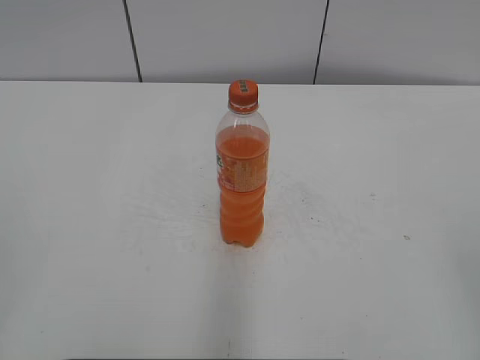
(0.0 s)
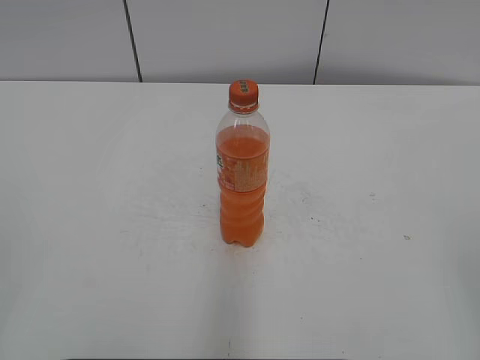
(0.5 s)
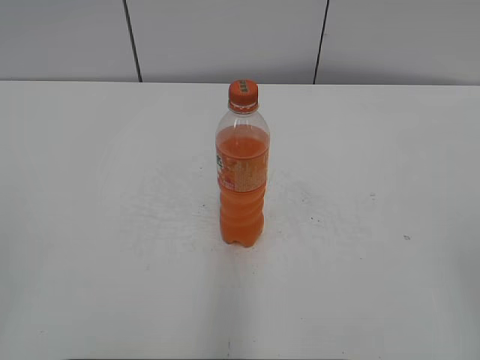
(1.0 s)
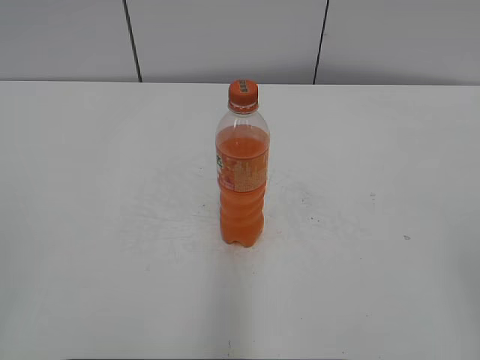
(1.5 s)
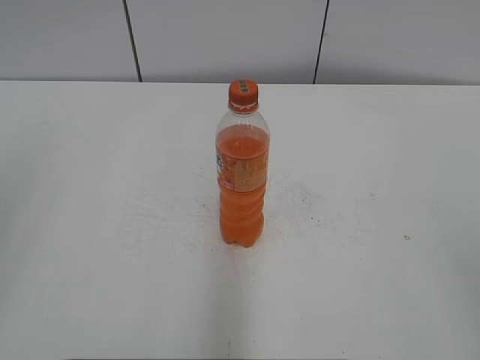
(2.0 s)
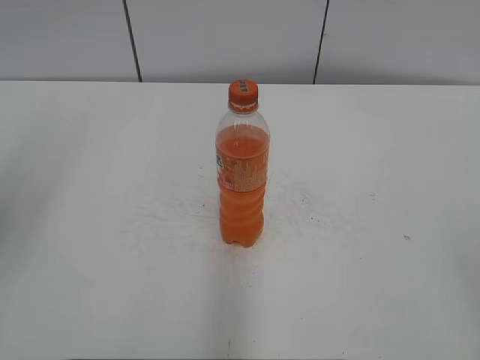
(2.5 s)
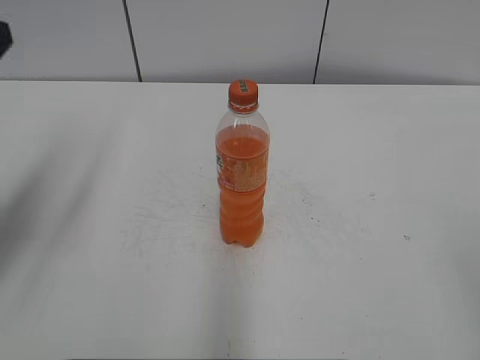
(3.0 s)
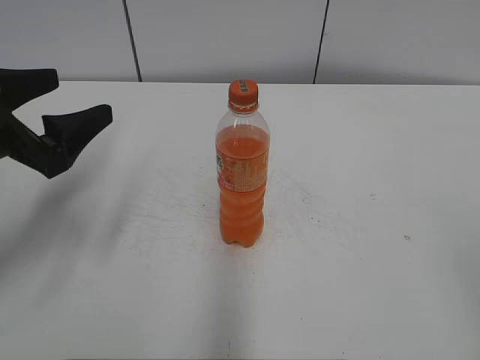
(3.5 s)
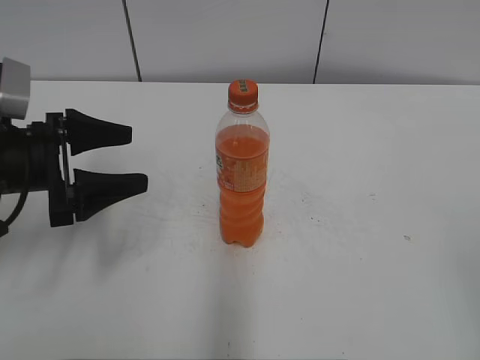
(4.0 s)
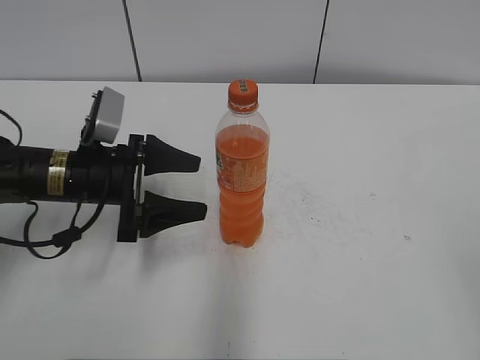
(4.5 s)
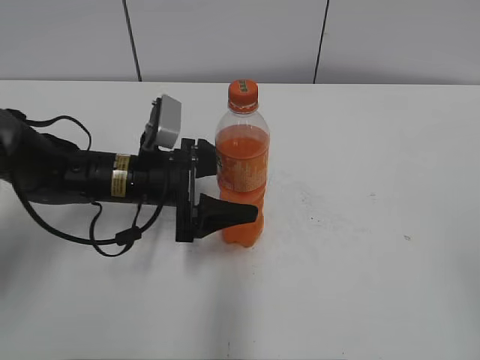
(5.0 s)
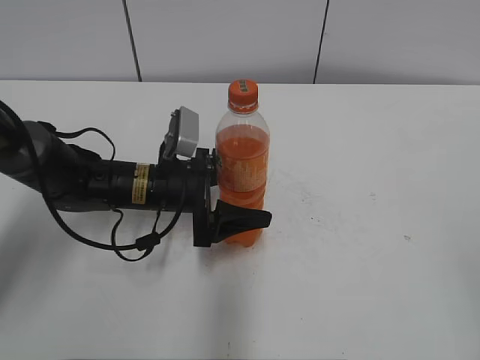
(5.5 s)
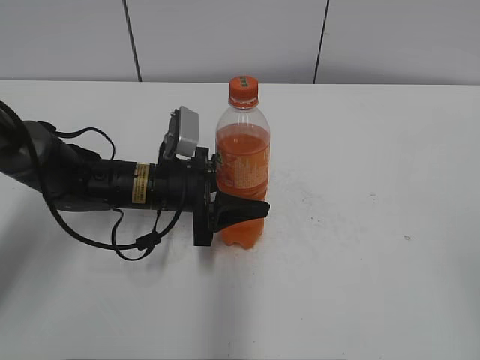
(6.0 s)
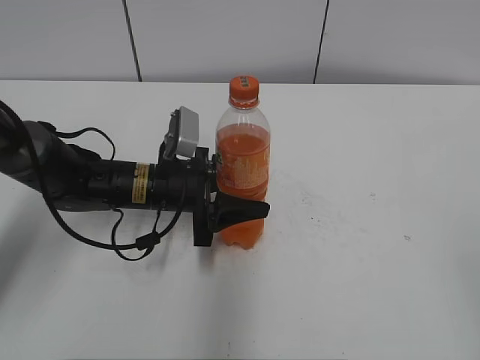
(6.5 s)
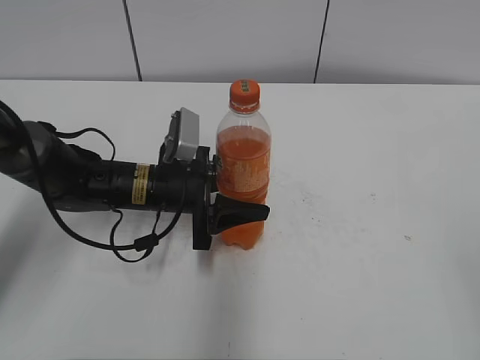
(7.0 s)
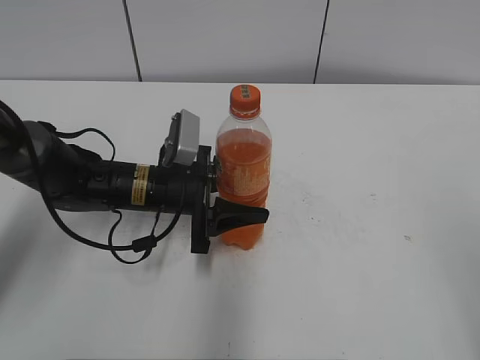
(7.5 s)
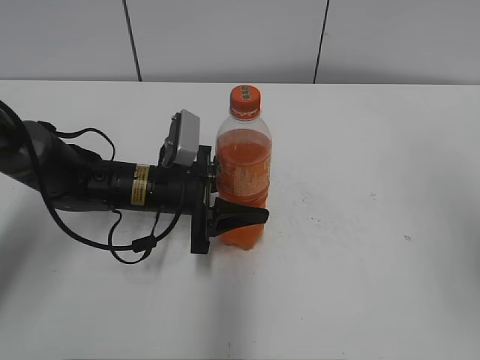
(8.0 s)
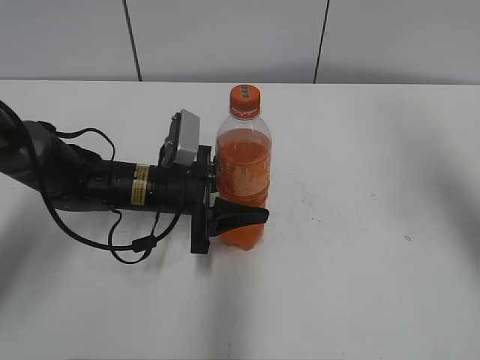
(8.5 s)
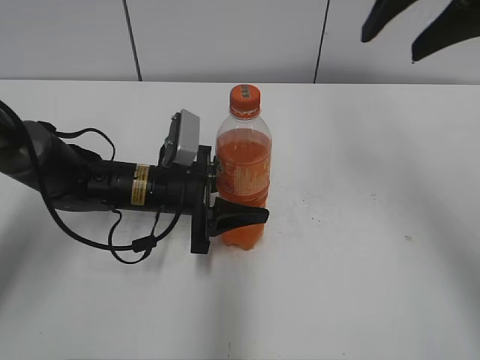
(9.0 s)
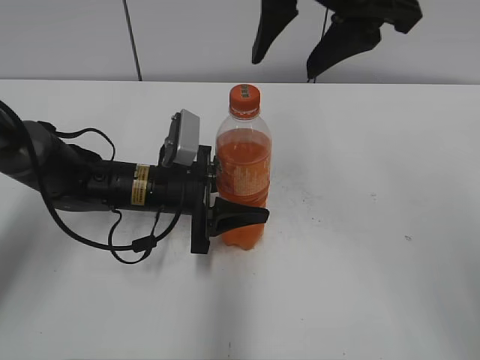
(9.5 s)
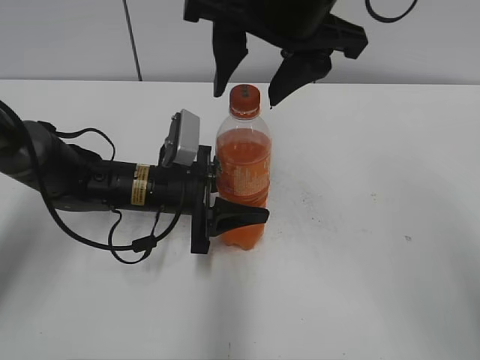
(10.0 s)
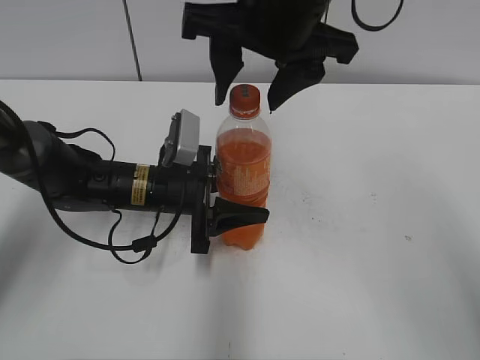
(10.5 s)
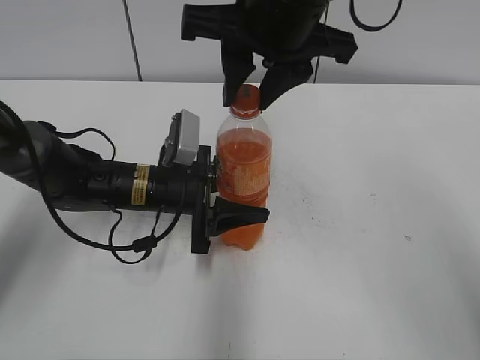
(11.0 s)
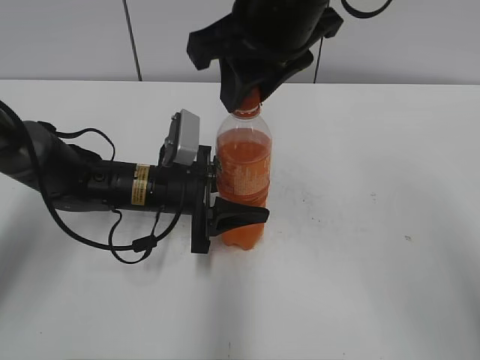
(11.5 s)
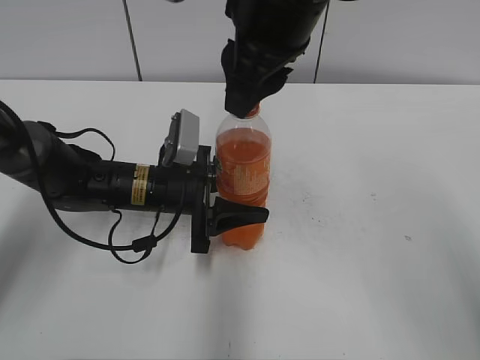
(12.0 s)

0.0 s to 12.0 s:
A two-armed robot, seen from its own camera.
Step, 0.0 to 6.0 s: Grab the Mirinda with the left hand.
2.0 to 4.0 s: The left gripper moves forward and downward, approximately 30 cm, and opens.
4.0 to 6.0 s: The left gripper is displaced to the right, downward and forward by about 20 cm, and closes up.
6.0 to 8.0 s: The right gripper moves forward and upward, approximately 10 cm.
8.0 to 10.0 s: The right gripper shifts approximately 30 cm to the left and forward.
10.0 to 12.0 s: The right gripper closes.

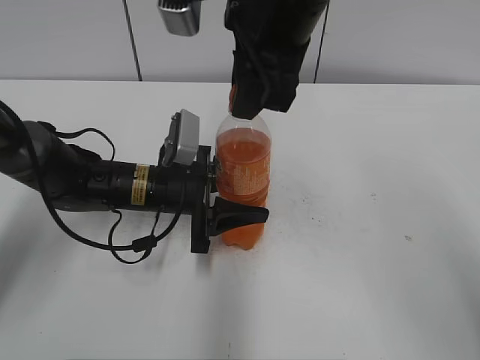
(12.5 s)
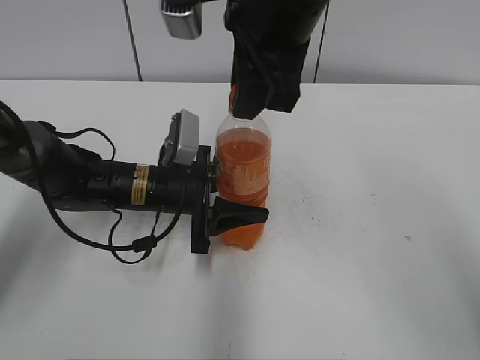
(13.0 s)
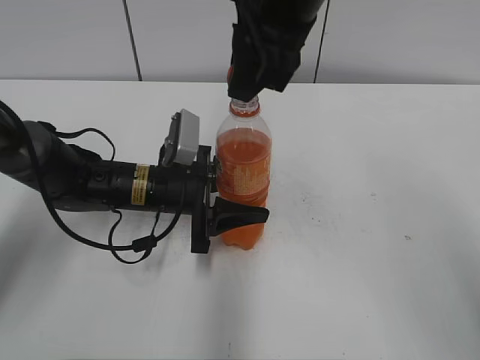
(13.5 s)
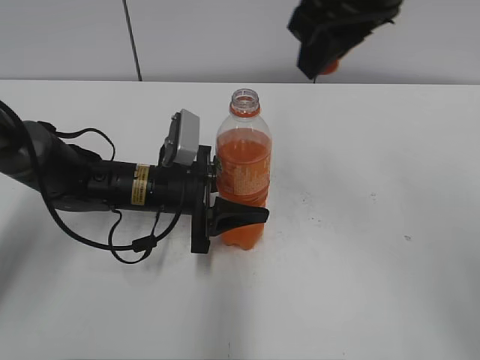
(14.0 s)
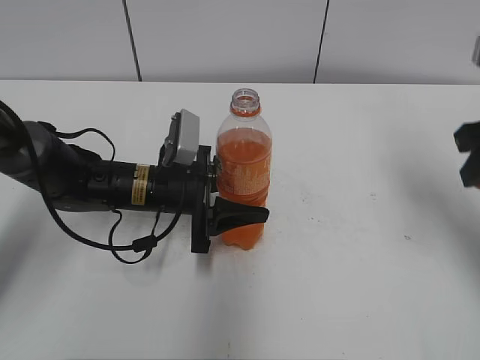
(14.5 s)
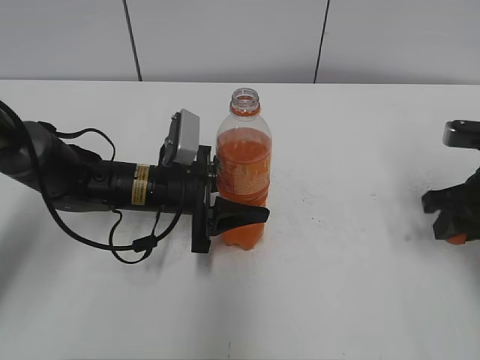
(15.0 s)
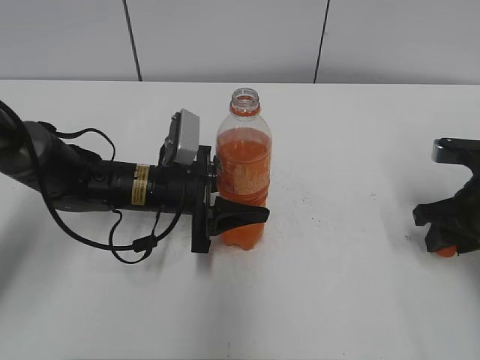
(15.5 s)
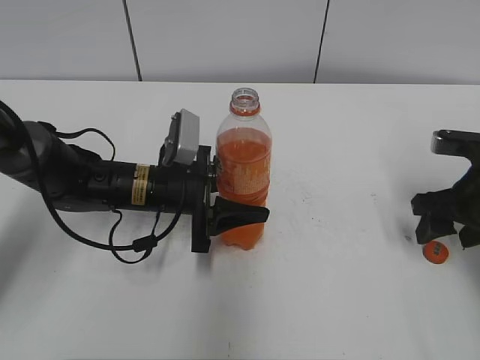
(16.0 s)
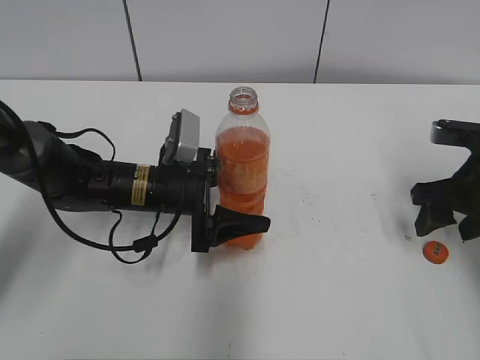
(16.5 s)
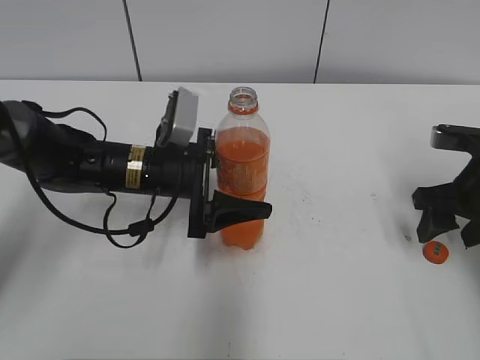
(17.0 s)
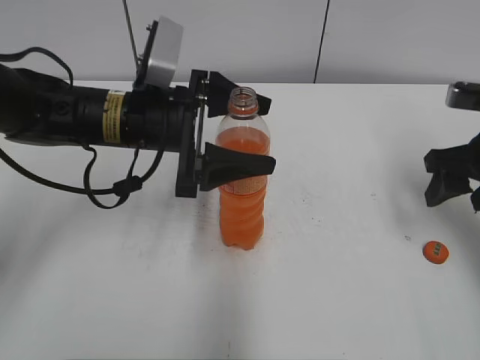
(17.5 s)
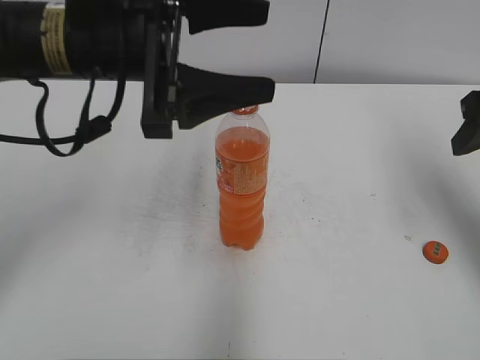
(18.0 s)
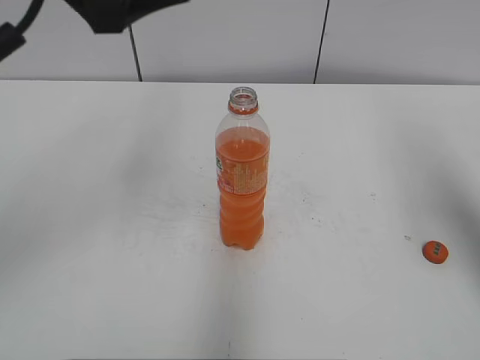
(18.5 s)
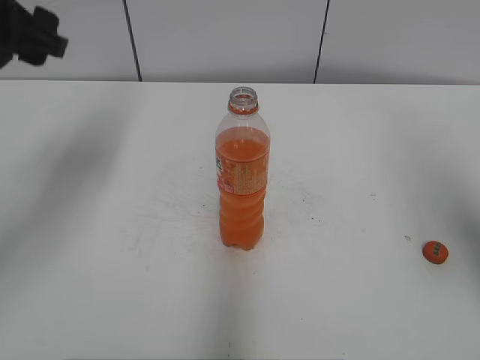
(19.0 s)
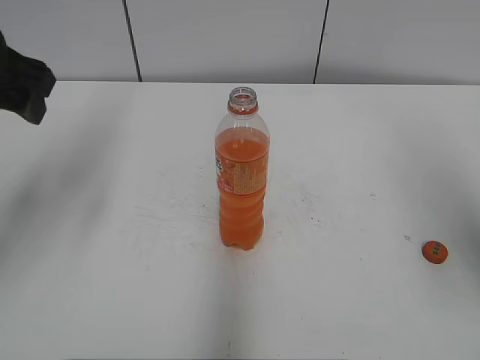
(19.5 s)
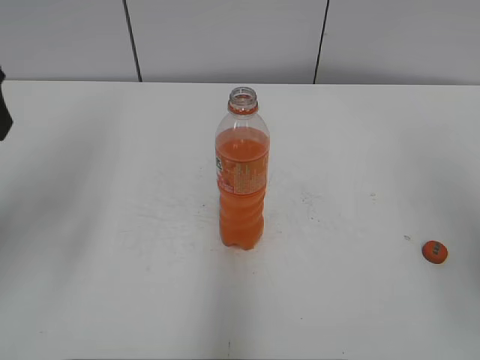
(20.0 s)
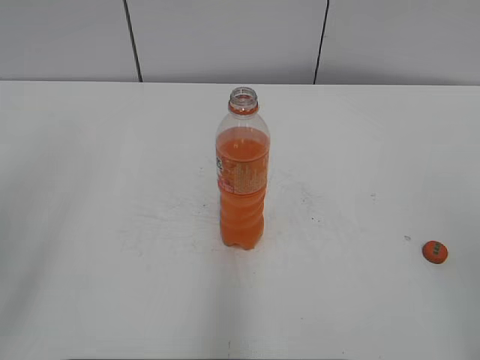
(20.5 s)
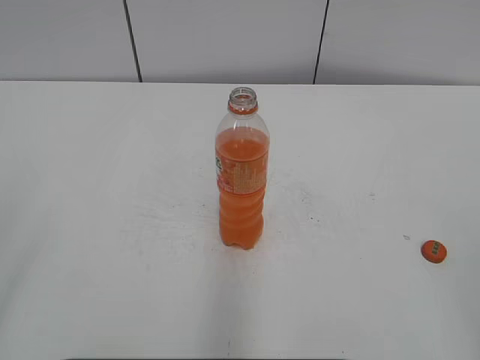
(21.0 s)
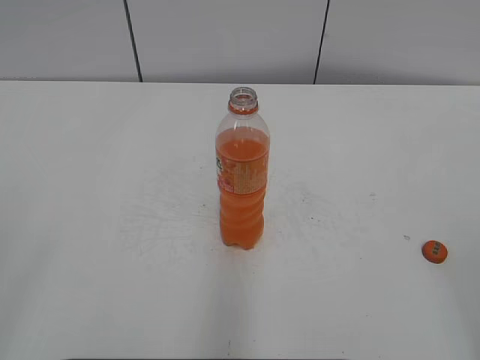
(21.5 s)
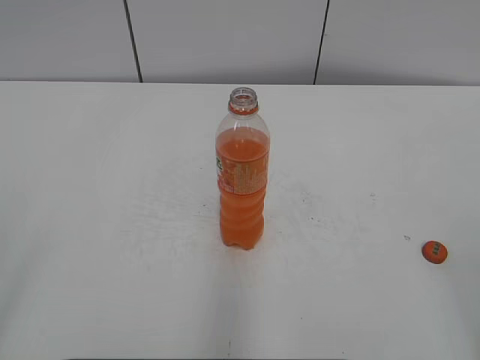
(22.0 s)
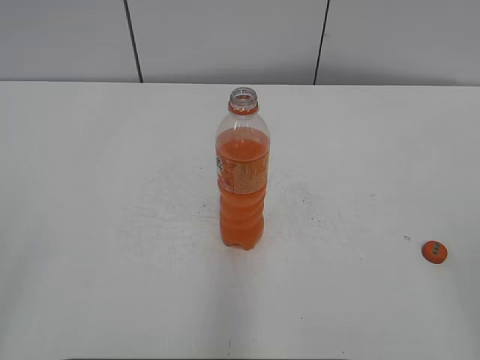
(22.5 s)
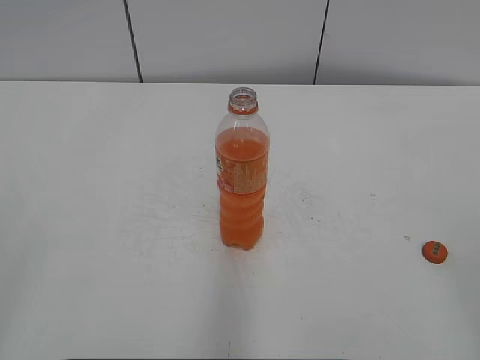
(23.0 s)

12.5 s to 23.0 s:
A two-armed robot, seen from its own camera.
Step, 13.5 to 15.5 s: Place the bottle cap on the right.
12.5 to 14.5 s: The right gripper shifts about 20 cm to the right.
14.5 to 16.5 s: The right gripper goes about 15 cm downward, and opens its fingers, while the left gripper opens.
16.5 to 19.0 s: The right gripper is displaced upward and backward by about 20 cm. Meanwhile the left gripper is displaced upward and to the left by approximately 25 cm.
19.0 to 21.0 s: The two grippers go approximately 25 cm backward.

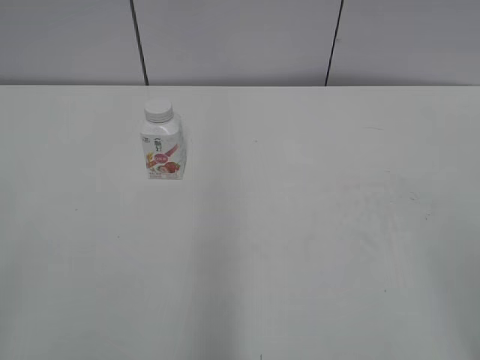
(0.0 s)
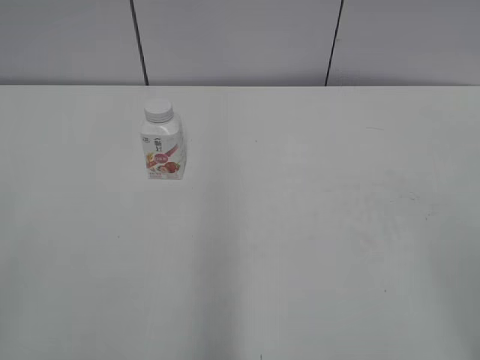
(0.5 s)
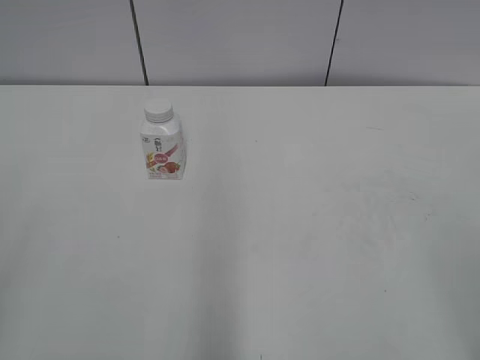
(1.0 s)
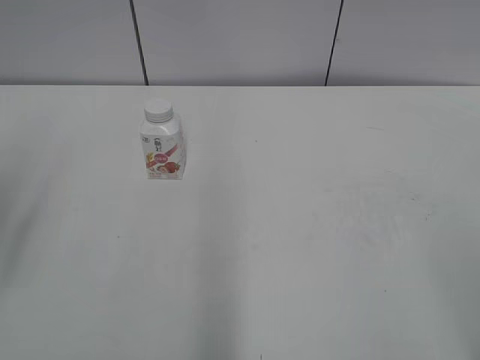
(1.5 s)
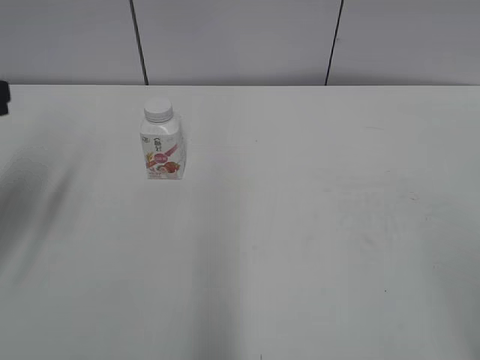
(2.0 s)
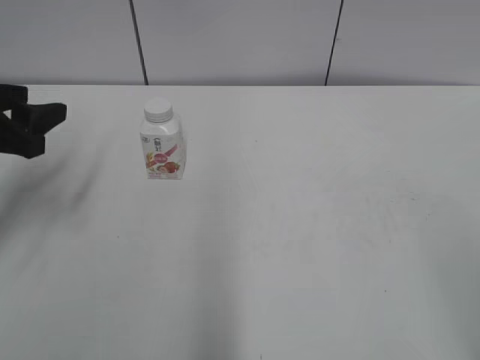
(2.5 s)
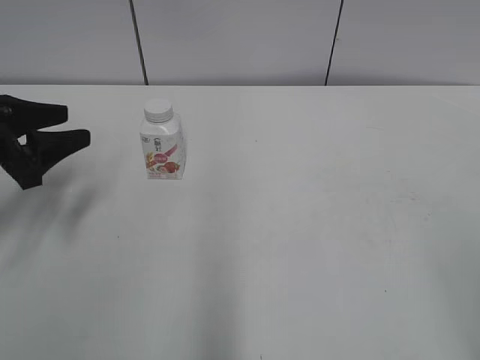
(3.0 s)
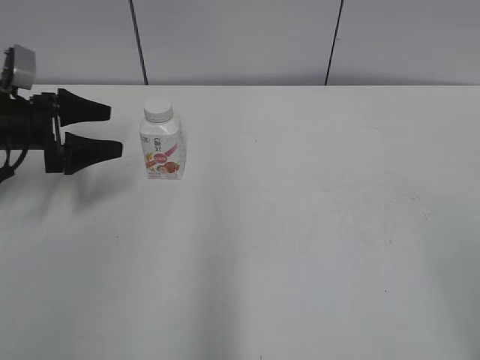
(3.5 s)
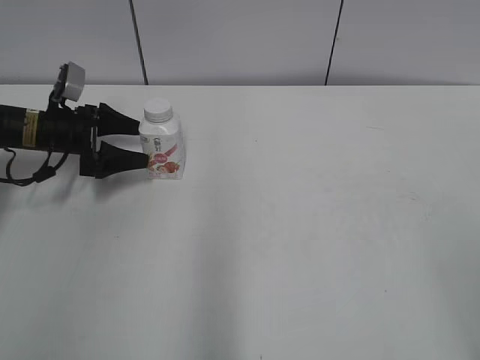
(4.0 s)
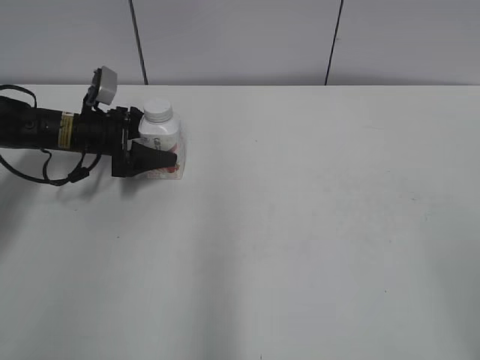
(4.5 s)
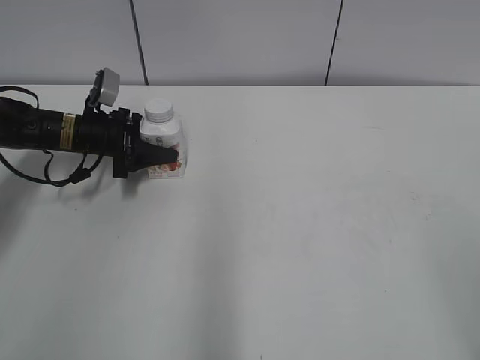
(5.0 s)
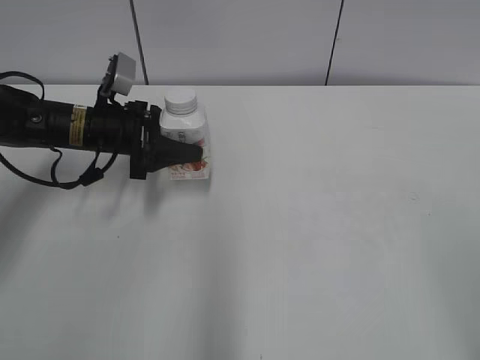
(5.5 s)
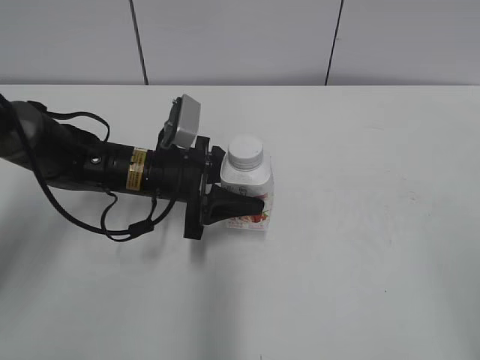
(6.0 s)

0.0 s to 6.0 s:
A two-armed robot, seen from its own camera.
Step, 0.0 to 4.5 s: Grab the Yili Changqing with the left hand.
2.0 to 4.0 s: The left gripper goes some 25 cm forward and downward, and opens up.
4.0 to 6.0 s: The left gripper moves to the right and backward, roughly 20 cm, and closes up.
